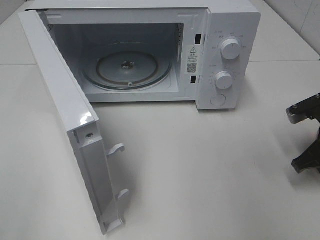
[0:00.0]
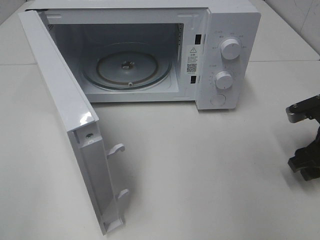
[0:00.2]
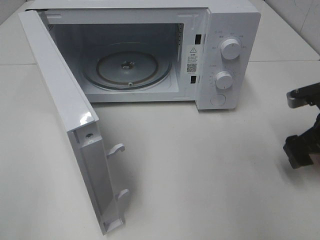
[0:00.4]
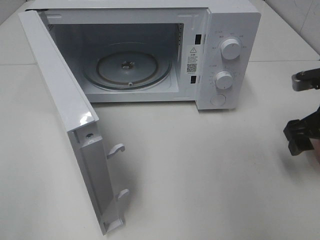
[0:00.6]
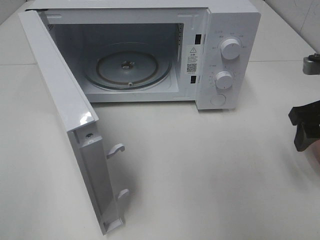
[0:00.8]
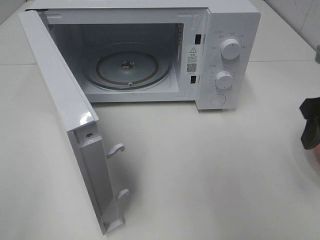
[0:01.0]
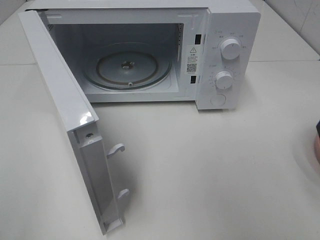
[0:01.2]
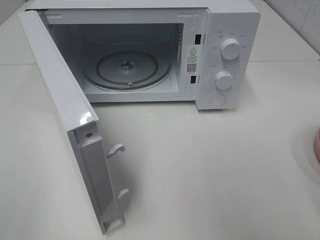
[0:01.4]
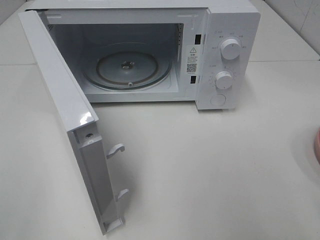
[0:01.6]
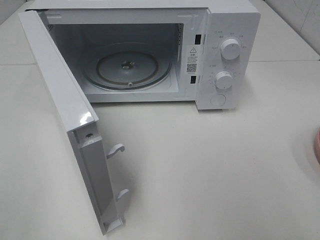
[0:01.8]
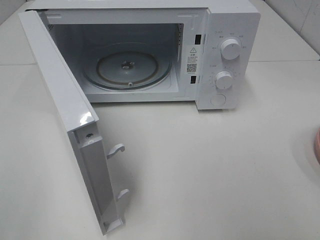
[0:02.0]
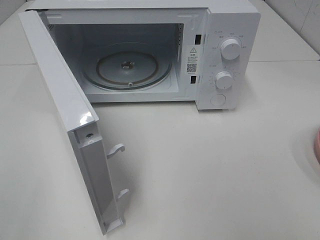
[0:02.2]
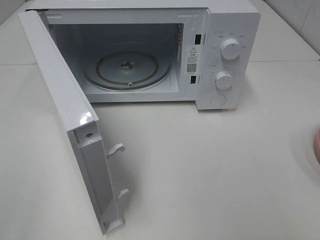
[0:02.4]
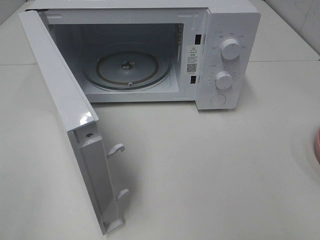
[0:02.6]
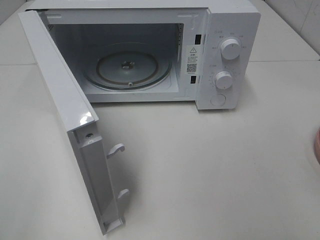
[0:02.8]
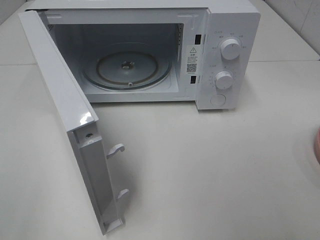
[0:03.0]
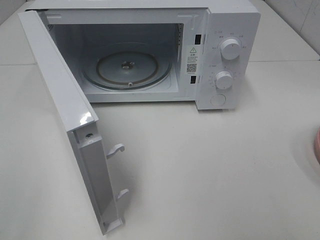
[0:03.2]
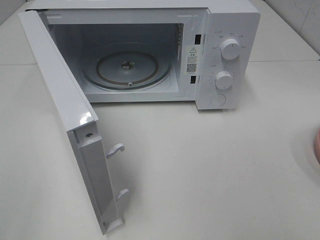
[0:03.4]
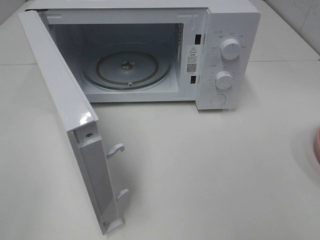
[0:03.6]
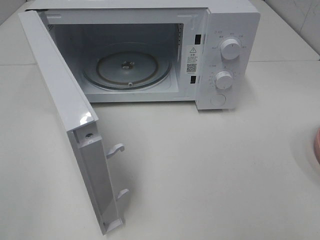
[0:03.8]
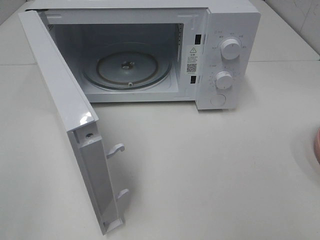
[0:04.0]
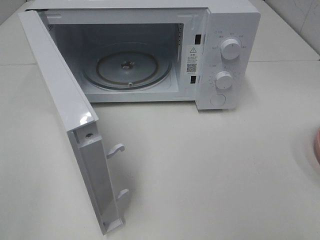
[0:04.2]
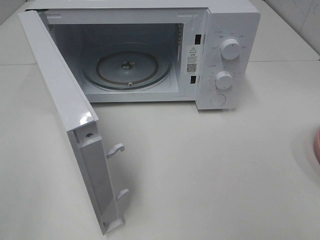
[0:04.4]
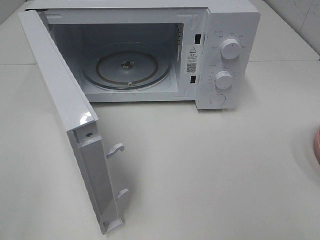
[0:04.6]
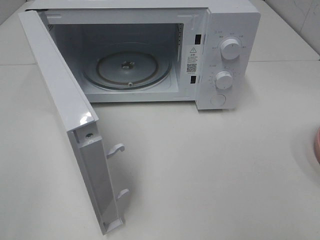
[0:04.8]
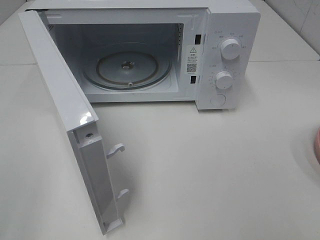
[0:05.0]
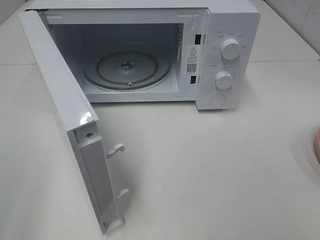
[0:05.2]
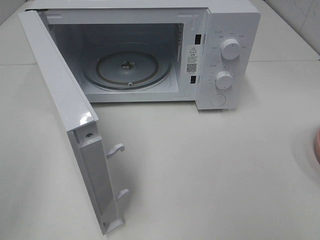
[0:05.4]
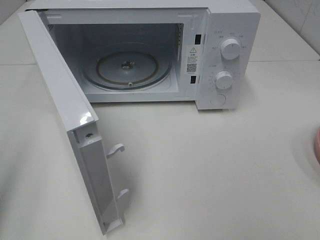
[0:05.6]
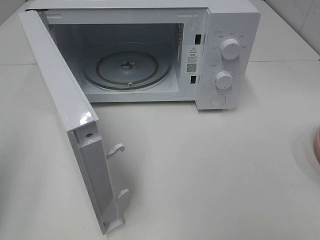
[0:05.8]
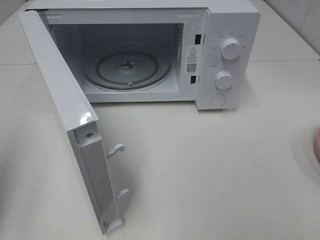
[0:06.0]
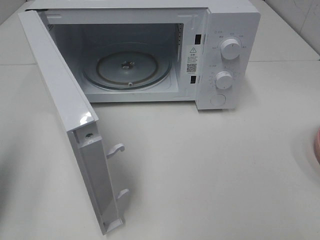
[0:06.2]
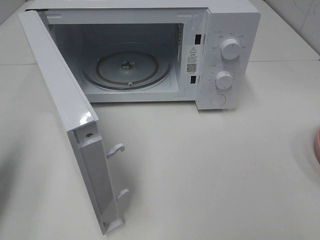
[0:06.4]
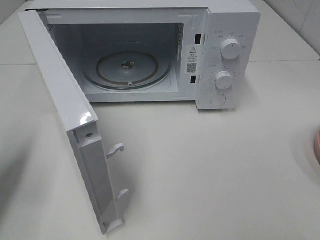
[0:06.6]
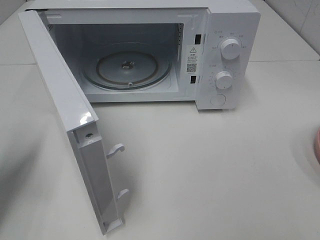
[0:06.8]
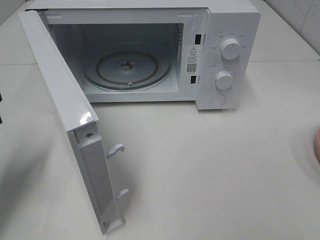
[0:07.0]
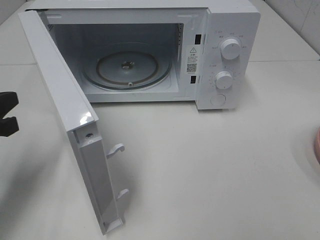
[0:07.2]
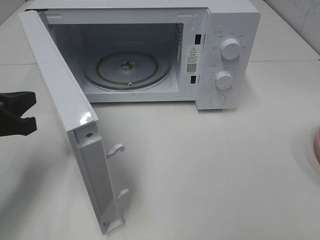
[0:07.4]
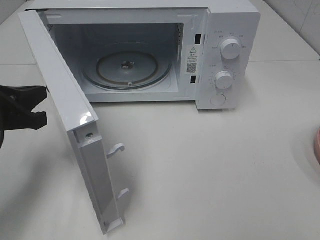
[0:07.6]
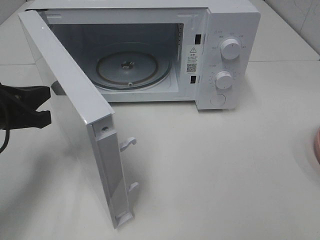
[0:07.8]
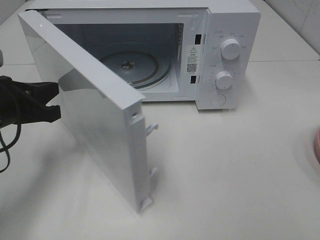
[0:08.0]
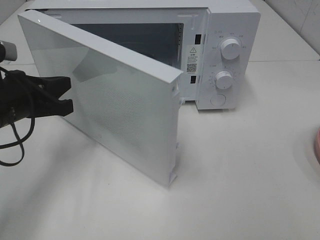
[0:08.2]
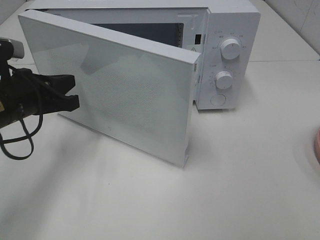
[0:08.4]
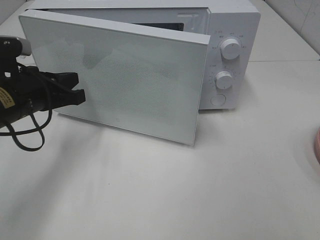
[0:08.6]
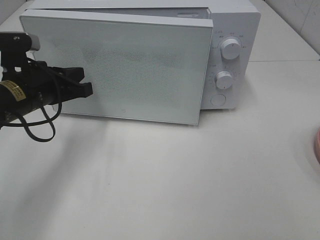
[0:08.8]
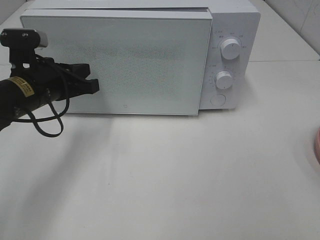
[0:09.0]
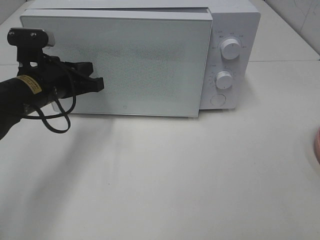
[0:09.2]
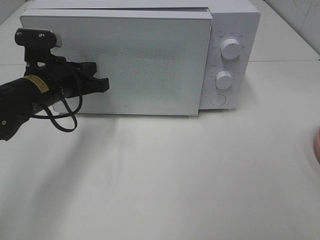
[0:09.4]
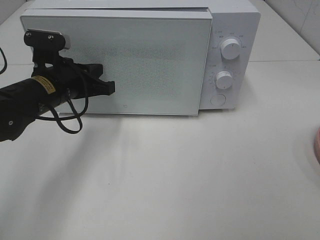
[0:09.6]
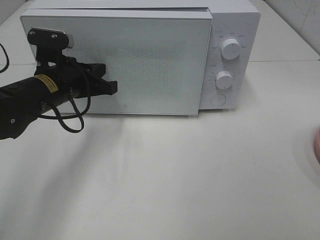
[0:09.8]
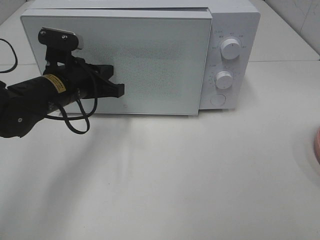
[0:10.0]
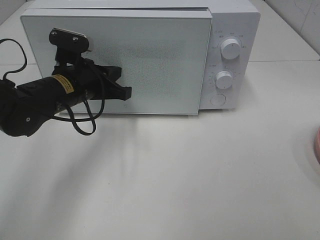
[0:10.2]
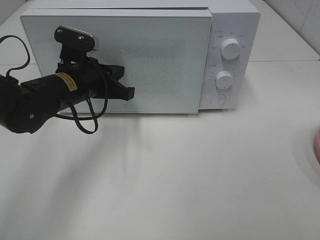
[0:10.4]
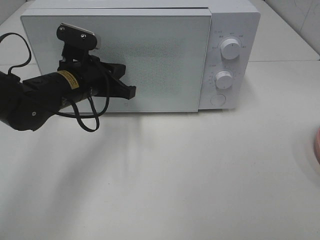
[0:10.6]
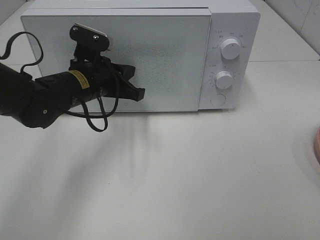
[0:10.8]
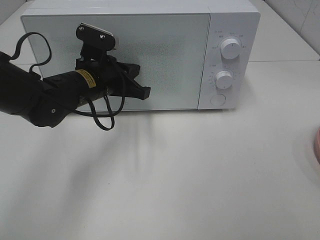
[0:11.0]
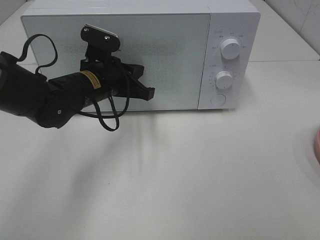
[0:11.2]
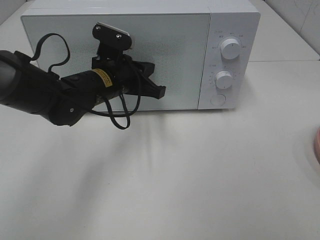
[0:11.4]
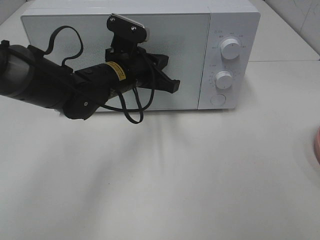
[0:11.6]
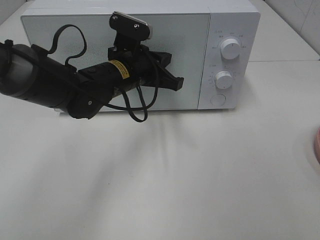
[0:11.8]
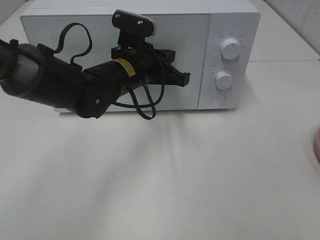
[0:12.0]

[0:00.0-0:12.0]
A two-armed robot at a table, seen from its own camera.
Task of the whole recording: Heat the burger.
Step, 0.2 to 11.0 s: Left hand: close the microwave door.
0.0 to 1.6 s: The right gripper shifts about 25 cm upward and backward, and opens.
4.4 to 6.0 s: The left gripper goes about 15 cm forward, and closes.
6.0 to 7.6 s: The left gripper shifts about 15 cm forward, to the right and downward.
7.6 to 9.0 s: The left gripper travels forward and to the right by some 10 cm.
9.0 to 10.4 s: The left gripper goes about 5 cm to the right.
10.4 to 12.0 s: The left gripper shifts some 10 cm to the right.

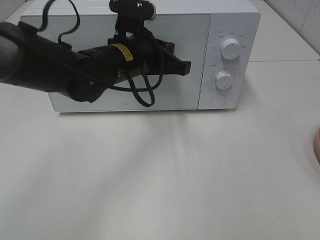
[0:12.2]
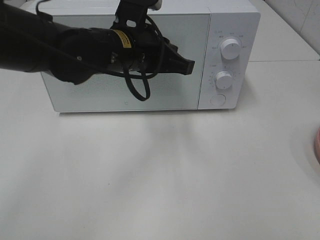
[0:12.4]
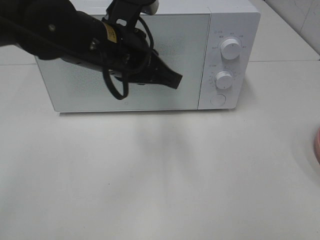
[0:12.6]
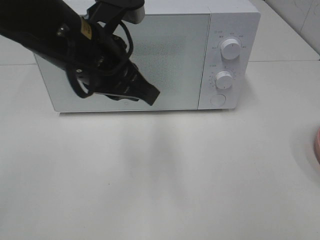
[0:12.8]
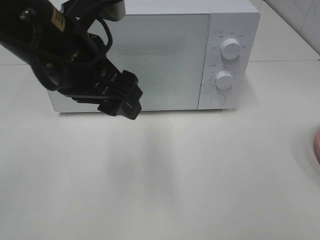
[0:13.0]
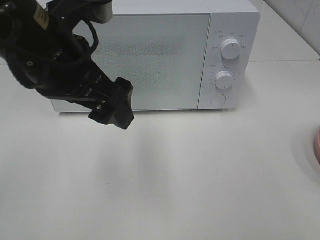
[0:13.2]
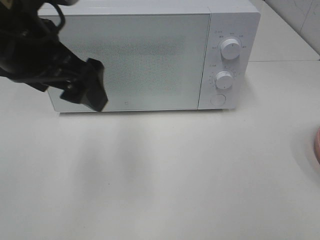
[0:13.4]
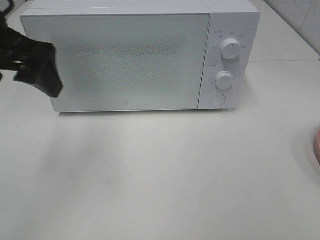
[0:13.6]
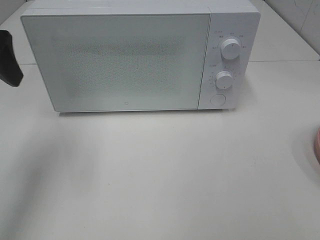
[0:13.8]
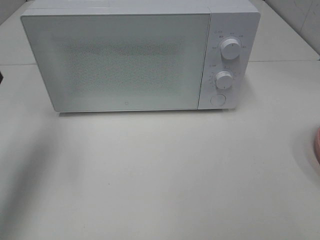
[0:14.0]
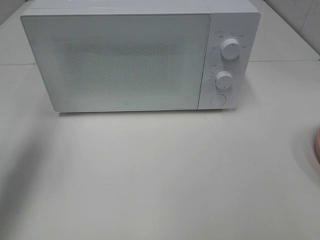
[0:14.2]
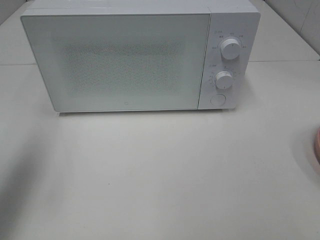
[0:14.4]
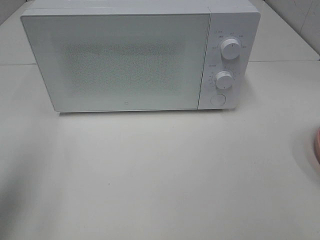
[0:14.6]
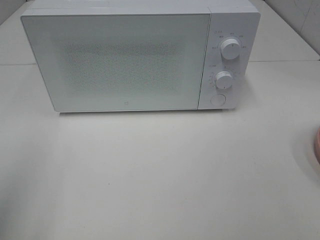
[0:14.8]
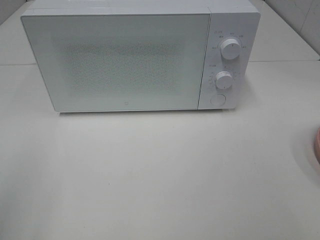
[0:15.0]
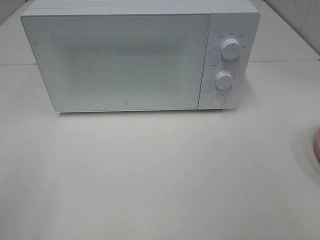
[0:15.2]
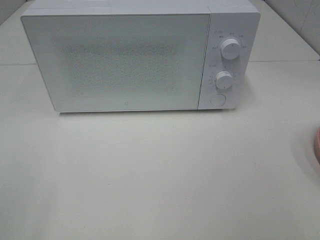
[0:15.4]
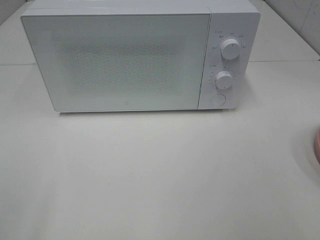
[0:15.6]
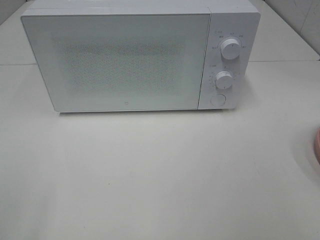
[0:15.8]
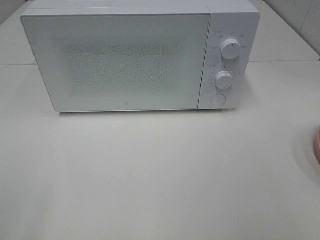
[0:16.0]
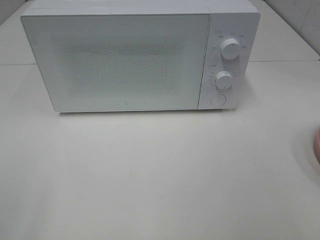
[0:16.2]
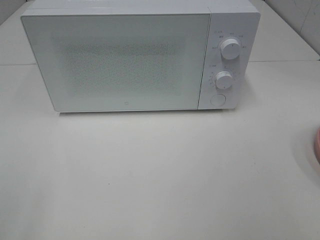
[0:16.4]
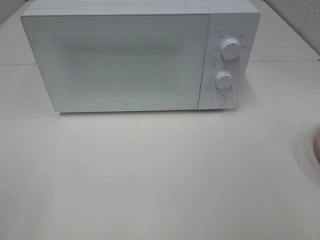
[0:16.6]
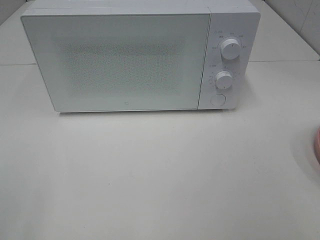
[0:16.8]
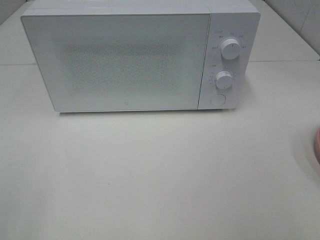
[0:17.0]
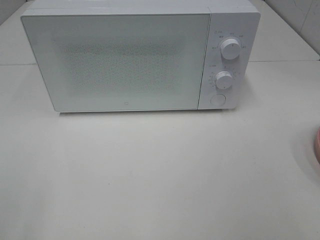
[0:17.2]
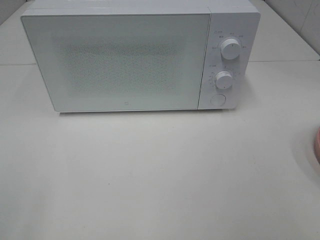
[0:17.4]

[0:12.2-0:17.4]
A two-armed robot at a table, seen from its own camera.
Task of the whole recording: Heat the burger.
12.2 to 14.0 s: The left gripper shifts roughly 30 cm to the left and upward, and opens its fingers.
14.0 to 15.6 s: The left gripper is displaced backward by about 25 cm.

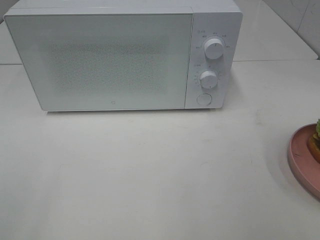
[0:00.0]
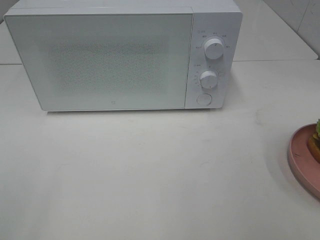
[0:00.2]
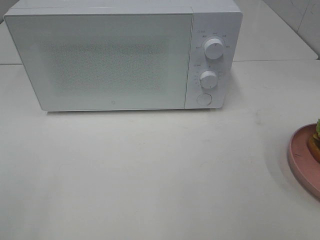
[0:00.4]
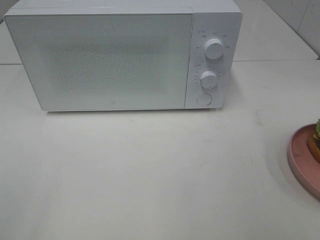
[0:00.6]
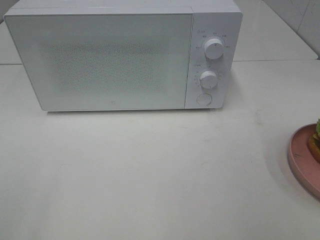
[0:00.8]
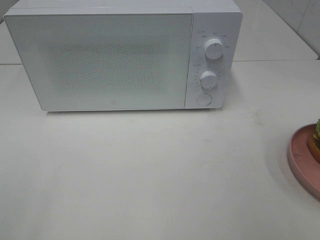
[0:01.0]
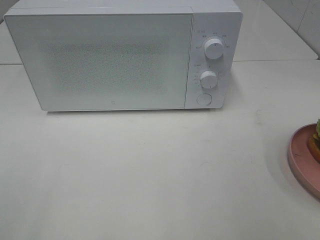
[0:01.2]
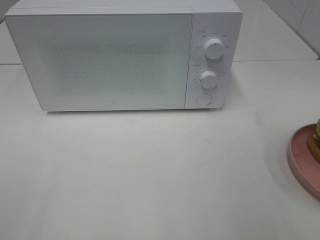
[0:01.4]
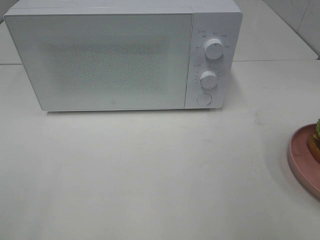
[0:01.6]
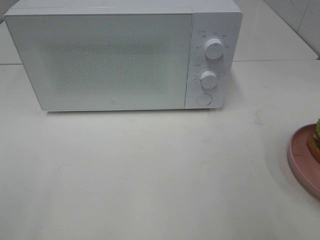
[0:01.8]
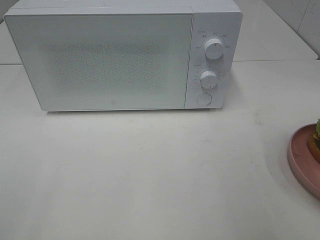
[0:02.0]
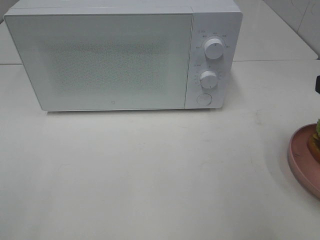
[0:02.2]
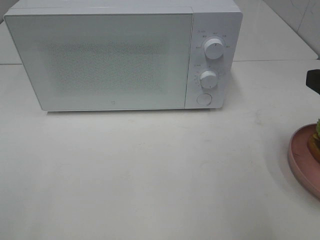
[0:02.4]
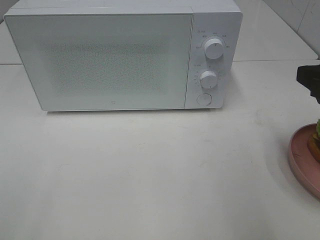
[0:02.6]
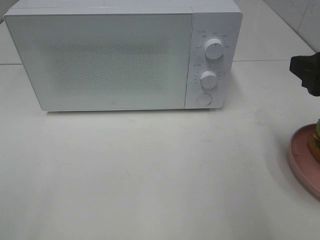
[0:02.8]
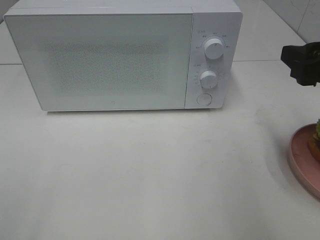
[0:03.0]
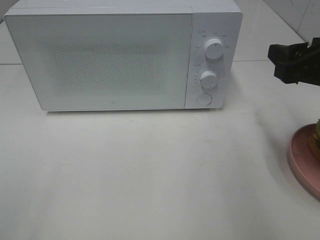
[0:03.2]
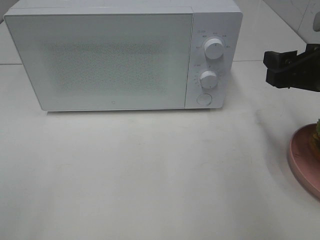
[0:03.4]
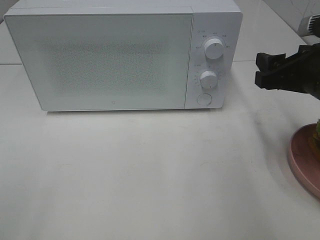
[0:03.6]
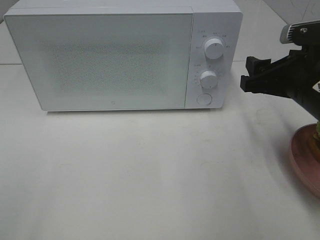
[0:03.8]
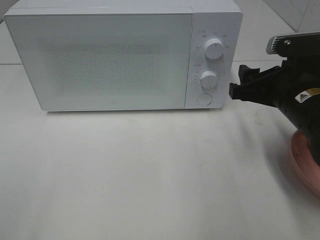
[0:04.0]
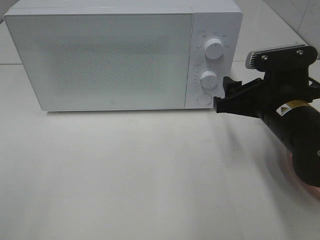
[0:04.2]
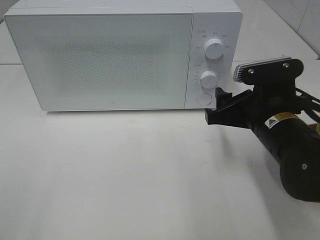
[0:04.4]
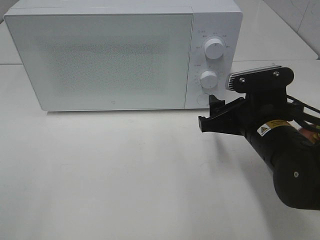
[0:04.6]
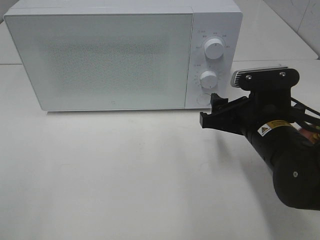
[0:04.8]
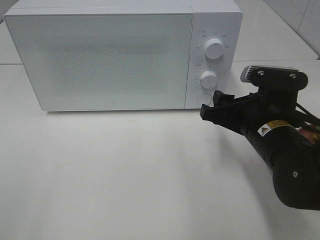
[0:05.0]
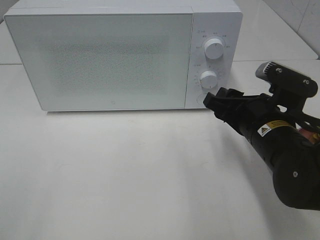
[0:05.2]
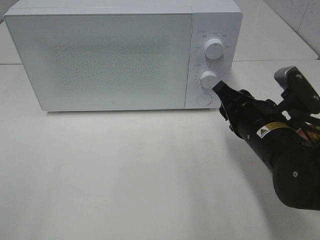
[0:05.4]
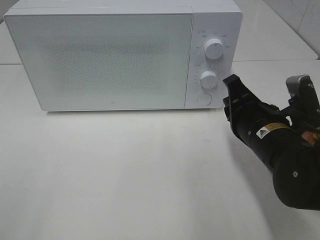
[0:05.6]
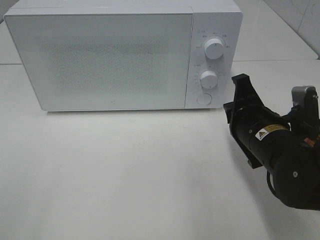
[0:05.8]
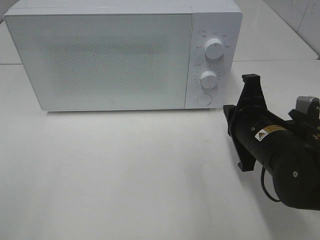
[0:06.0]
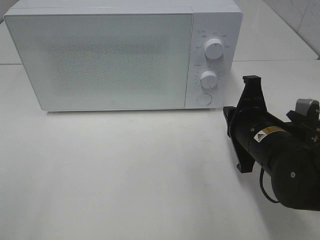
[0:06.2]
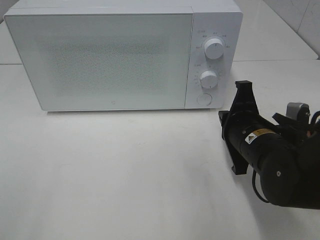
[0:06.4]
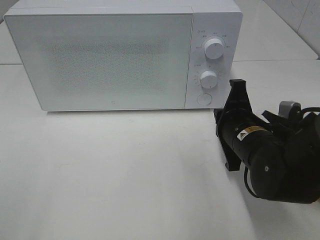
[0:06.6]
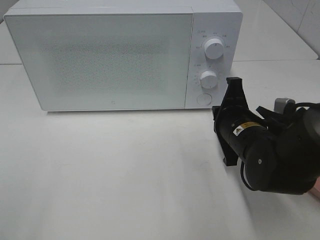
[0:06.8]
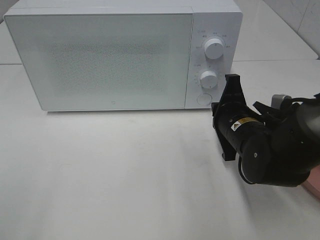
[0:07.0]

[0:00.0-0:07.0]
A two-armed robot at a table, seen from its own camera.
Task of the whole recording: Heat the burger.
1.4 to 2.8 s: The right gripper is displaced forward by about 10 cm.
2.8 to 4.2 s: The right gripper travels downward, to the left and forward by some 15 cm.
4.2 to 5.6 s: The right gripper closes its fingers.
5.6 to 7.0 s: The right gripper shifts by about 5 cm.
